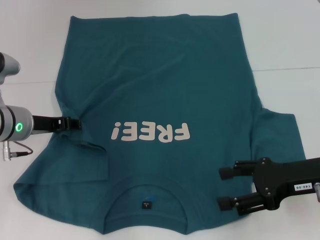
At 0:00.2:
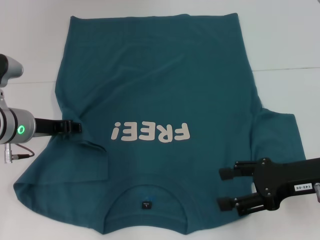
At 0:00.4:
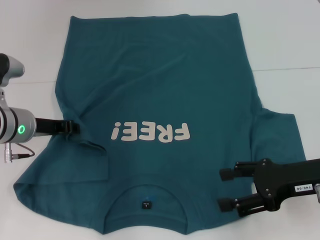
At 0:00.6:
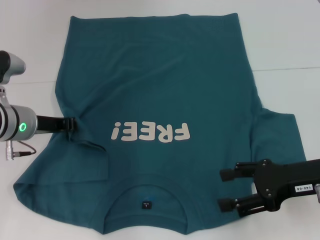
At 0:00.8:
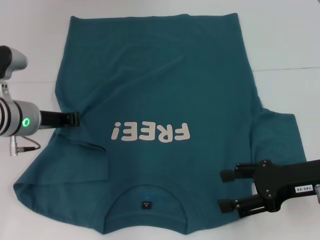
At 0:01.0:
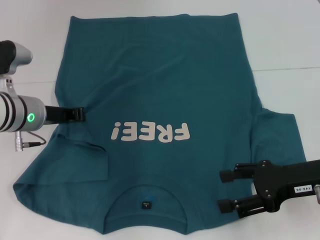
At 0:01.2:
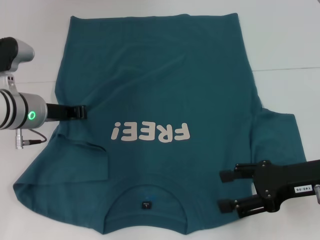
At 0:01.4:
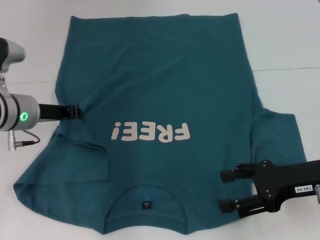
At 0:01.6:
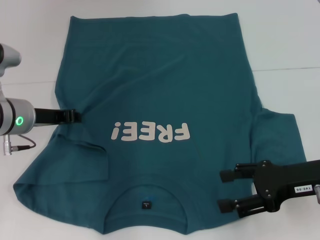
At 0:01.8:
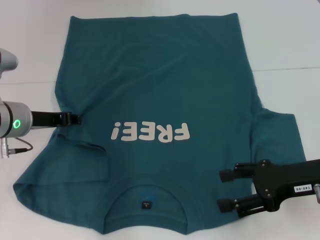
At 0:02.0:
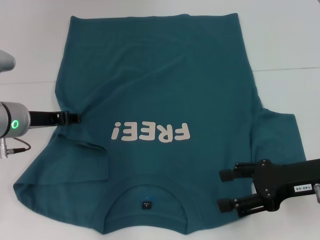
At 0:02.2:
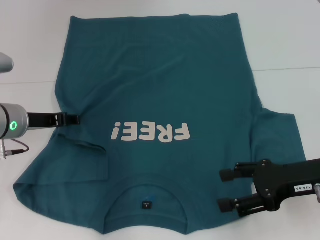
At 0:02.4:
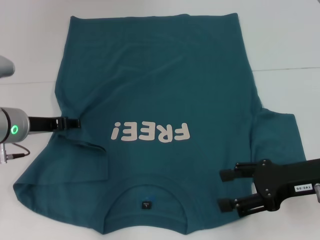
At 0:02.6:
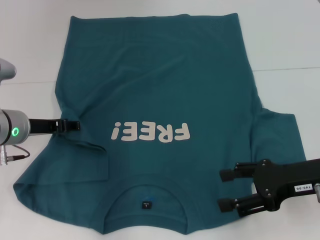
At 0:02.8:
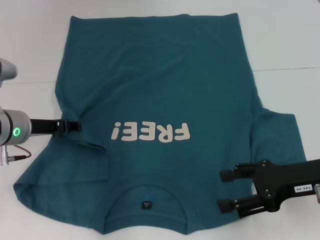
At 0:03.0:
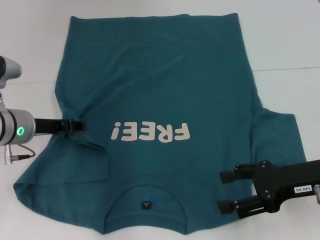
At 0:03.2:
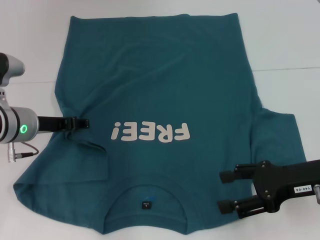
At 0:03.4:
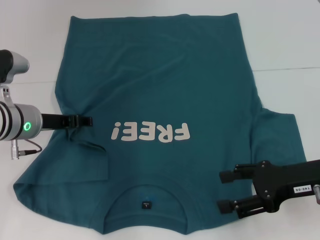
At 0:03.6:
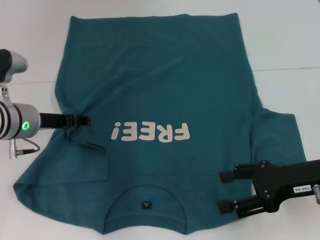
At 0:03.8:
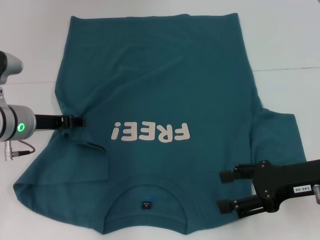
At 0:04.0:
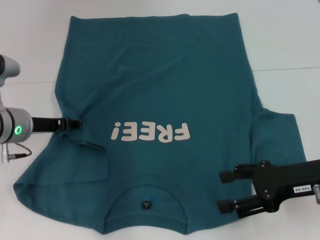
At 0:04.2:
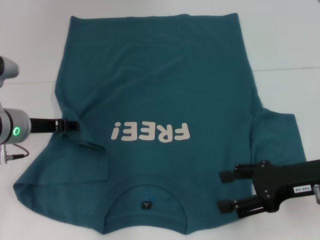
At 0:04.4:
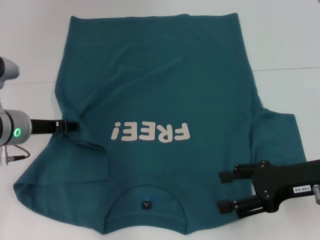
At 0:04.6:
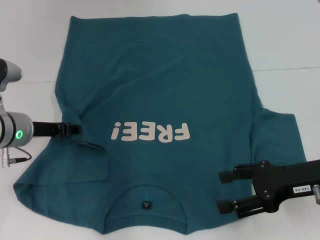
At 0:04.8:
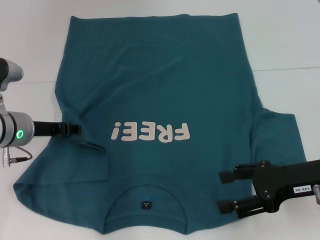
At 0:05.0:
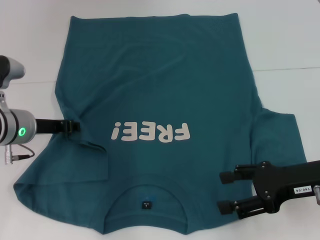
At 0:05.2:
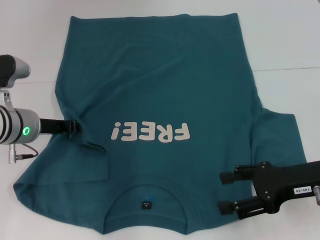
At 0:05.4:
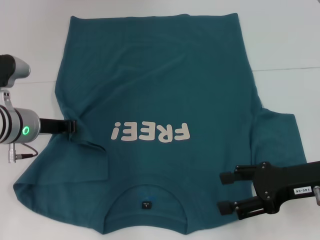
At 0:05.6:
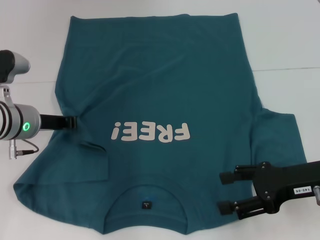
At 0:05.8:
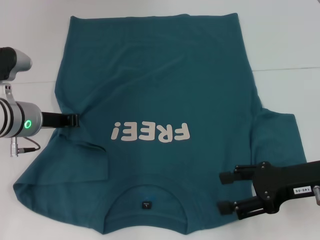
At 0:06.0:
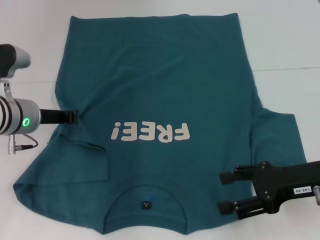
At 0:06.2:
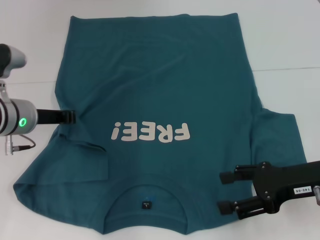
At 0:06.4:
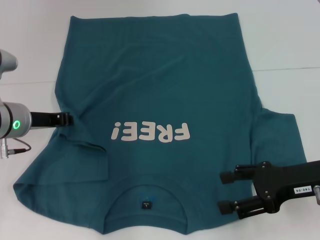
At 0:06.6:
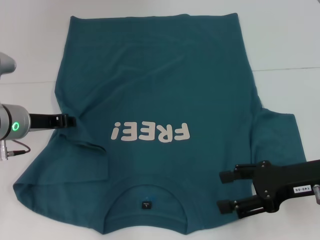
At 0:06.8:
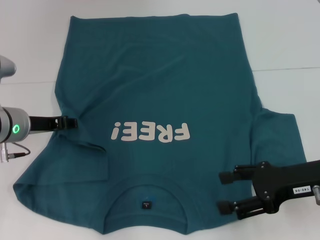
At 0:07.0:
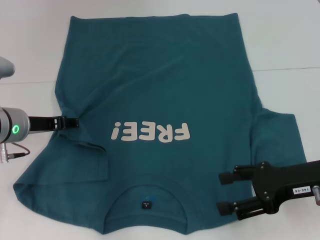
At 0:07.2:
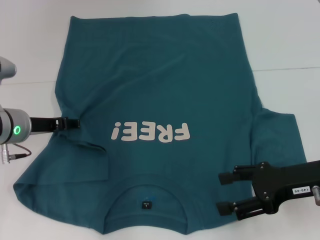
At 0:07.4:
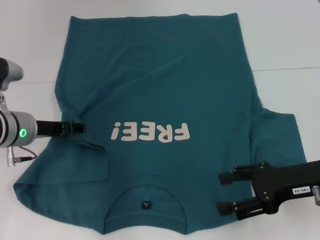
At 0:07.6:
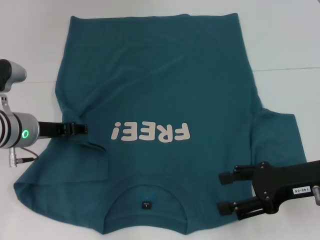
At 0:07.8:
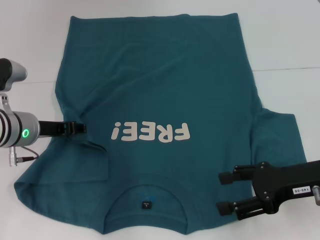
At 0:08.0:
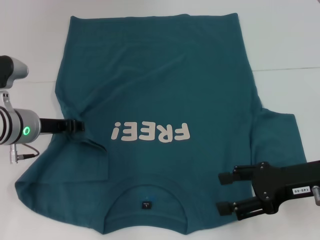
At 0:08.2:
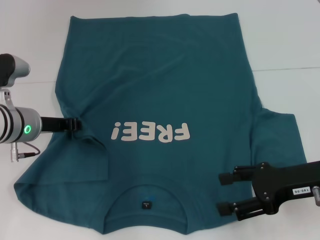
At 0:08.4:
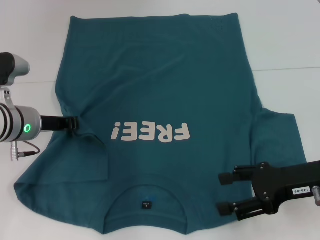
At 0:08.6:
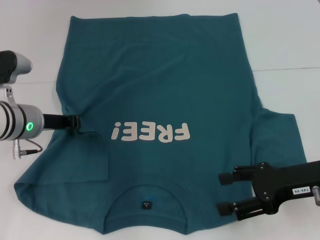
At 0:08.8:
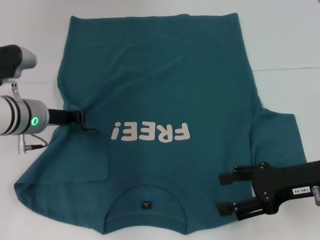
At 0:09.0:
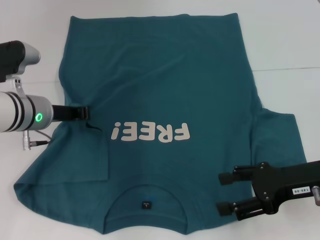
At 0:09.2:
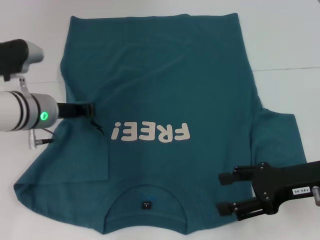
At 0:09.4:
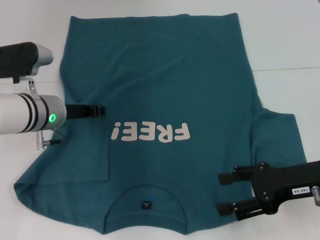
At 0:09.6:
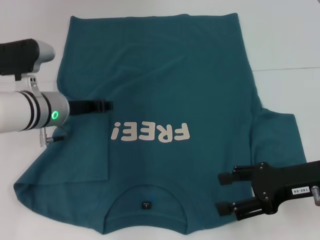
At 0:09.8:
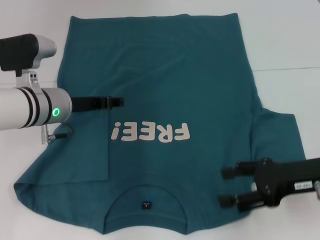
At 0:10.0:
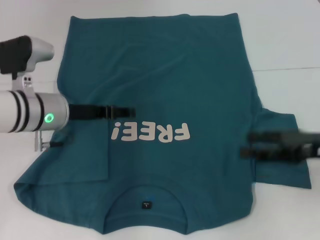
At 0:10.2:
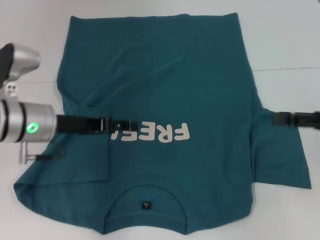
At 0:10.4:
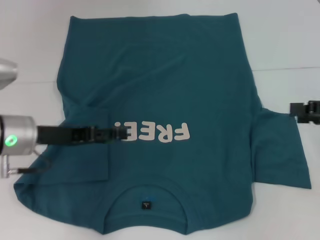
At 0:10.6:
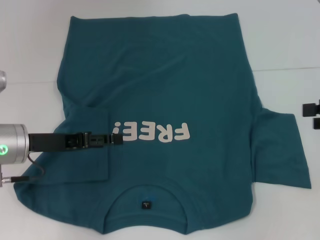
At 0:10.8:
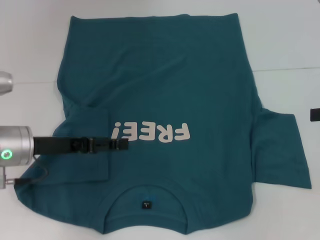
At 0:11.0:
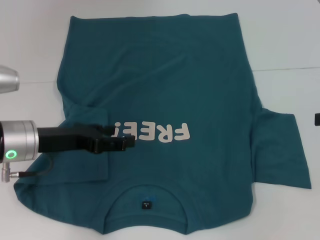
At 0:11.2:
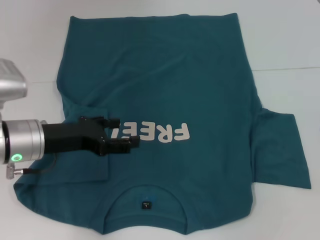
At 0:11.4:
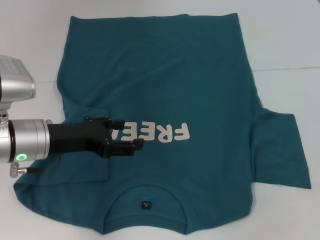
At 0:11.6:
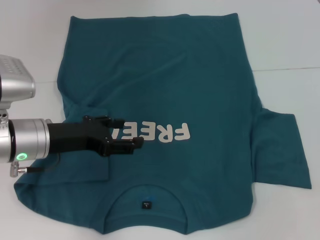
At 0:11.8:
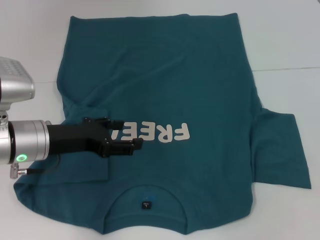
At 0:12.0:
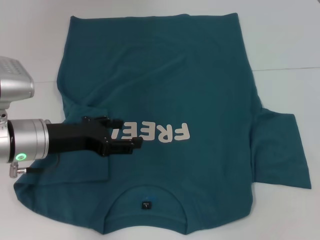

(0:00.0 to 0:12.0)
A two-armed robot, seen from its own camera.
Step, 0:00.0 - 0:10.0: Fold the bottom left sleeve with your left hand.
0:00.0 - 0:01.6: The left gripper closes.
0:01.6 - 0:03.0: The left gripper opens up.
0:03.0 - 0:04.4: The two grippers keep their place.
0:04.4 - 0:06.0: The left gripper closes its fingers.
0:06.0 - 0:07.6: The left gripper opens its fingers.
0:07.6 - 0:09.0: The left gripper closes up.
0:09.0 - 0:10.4: The left gripper changes place by roughly 5 cm, and opens, while the right gripper is displaced to the right and upward by approximately 10 cm.
0:10.4 - 0:12.0: The right gripper is displaced to the right by about 5 cm.

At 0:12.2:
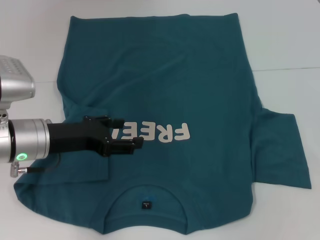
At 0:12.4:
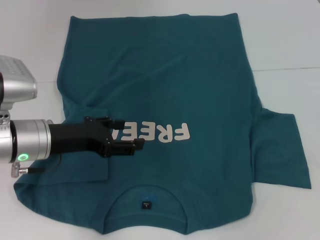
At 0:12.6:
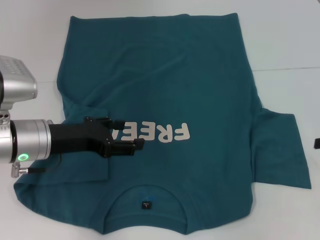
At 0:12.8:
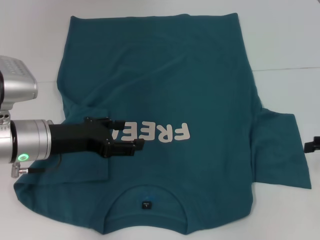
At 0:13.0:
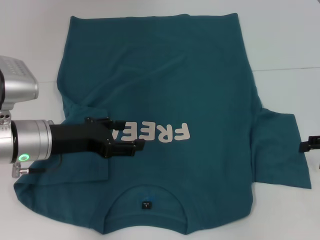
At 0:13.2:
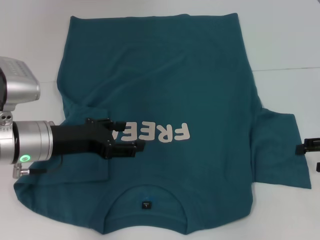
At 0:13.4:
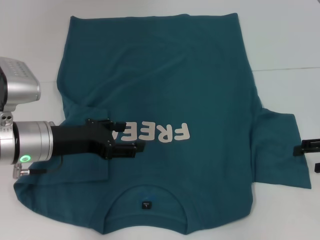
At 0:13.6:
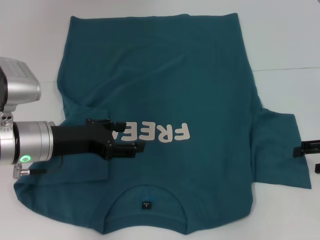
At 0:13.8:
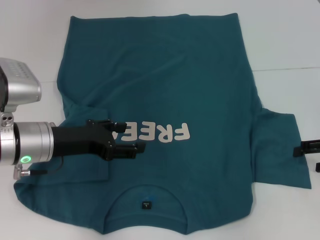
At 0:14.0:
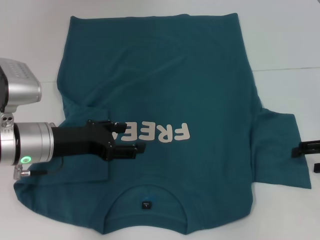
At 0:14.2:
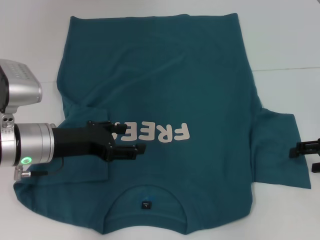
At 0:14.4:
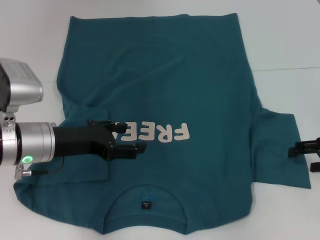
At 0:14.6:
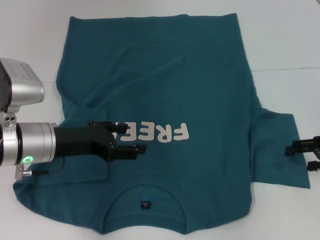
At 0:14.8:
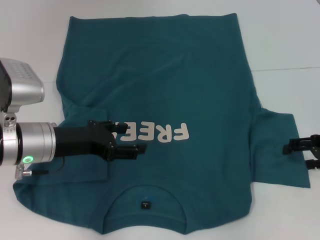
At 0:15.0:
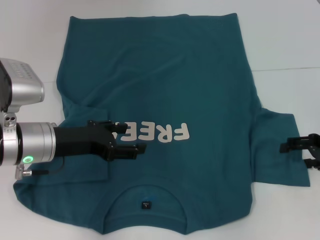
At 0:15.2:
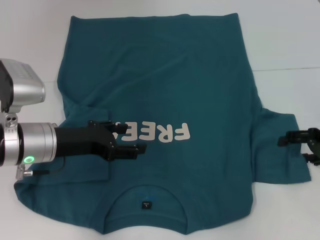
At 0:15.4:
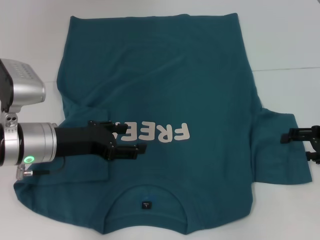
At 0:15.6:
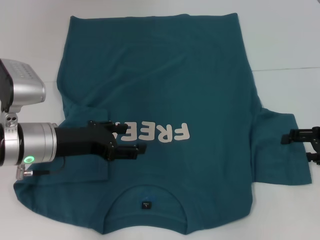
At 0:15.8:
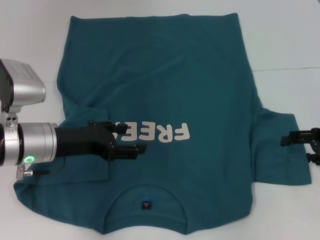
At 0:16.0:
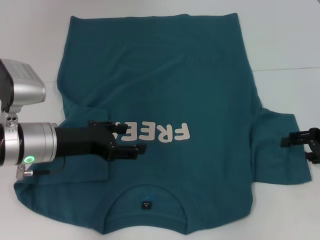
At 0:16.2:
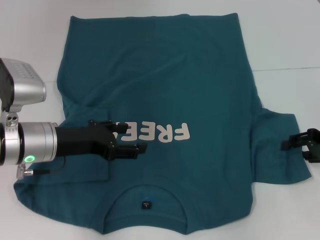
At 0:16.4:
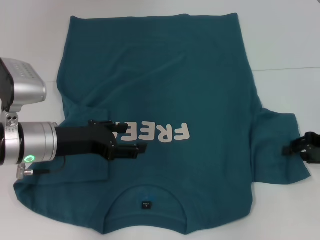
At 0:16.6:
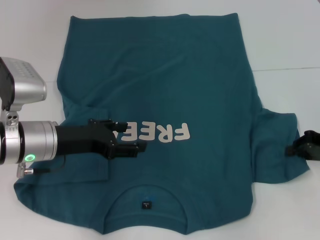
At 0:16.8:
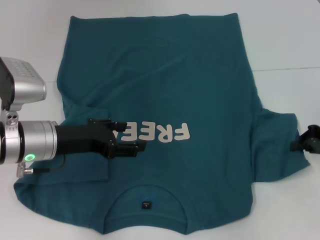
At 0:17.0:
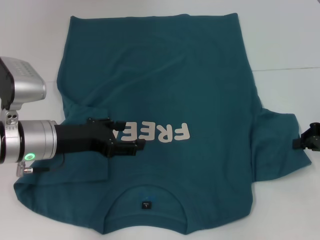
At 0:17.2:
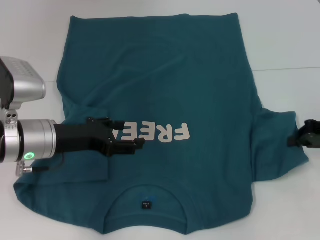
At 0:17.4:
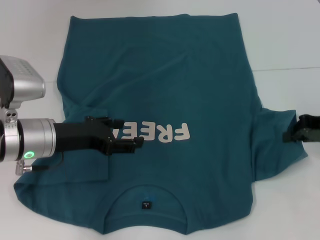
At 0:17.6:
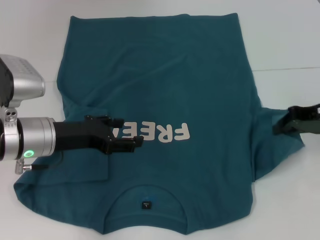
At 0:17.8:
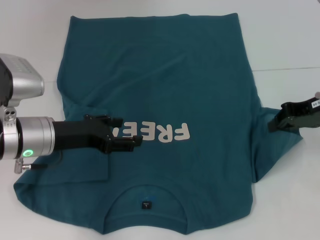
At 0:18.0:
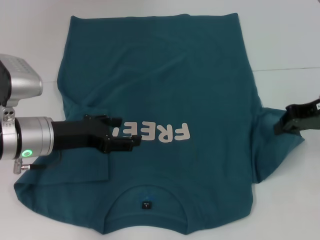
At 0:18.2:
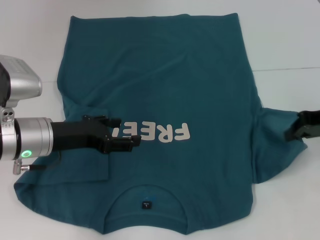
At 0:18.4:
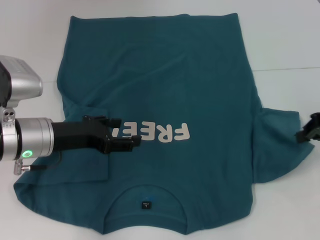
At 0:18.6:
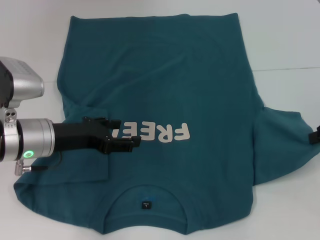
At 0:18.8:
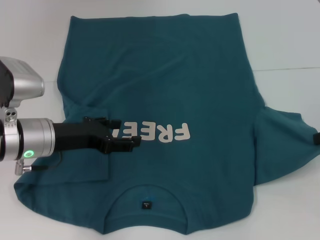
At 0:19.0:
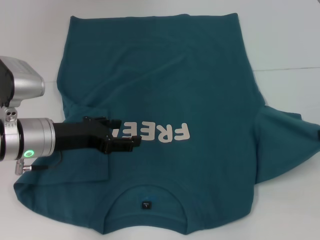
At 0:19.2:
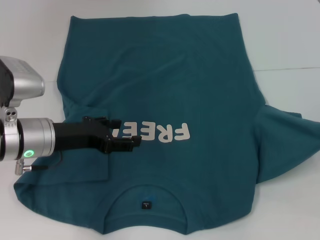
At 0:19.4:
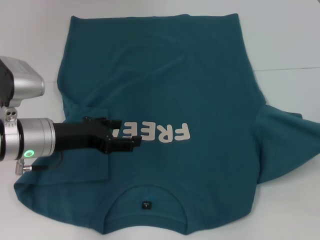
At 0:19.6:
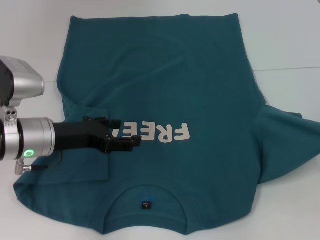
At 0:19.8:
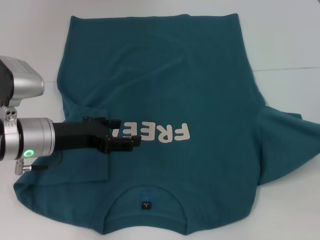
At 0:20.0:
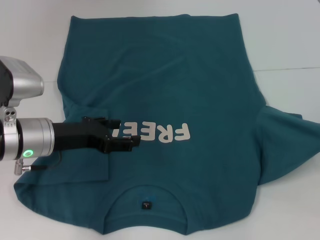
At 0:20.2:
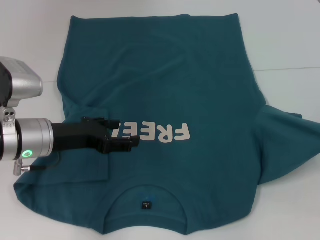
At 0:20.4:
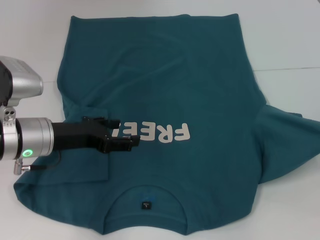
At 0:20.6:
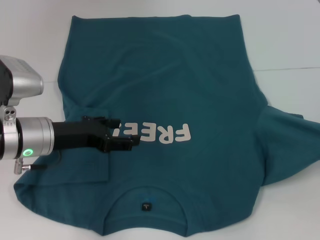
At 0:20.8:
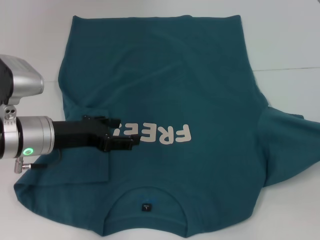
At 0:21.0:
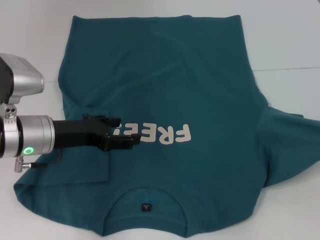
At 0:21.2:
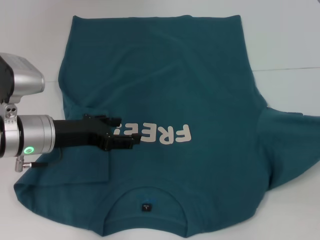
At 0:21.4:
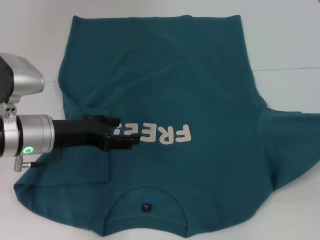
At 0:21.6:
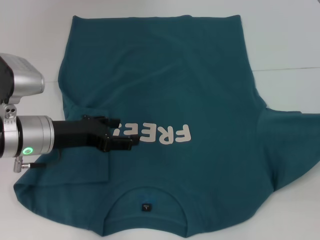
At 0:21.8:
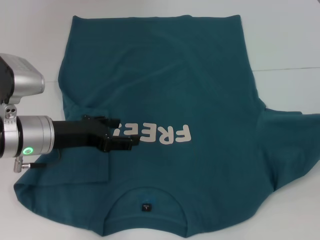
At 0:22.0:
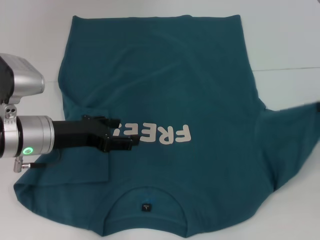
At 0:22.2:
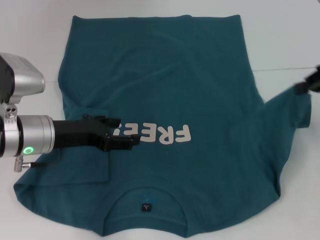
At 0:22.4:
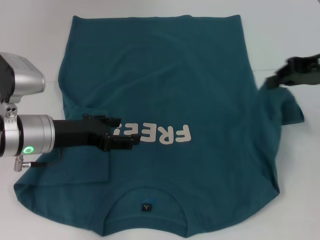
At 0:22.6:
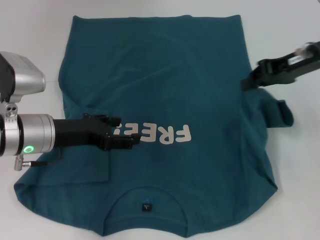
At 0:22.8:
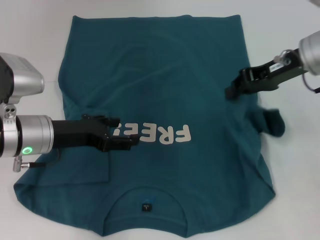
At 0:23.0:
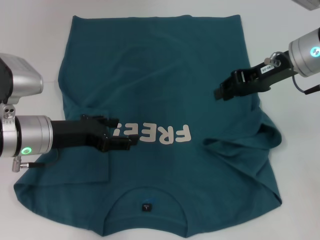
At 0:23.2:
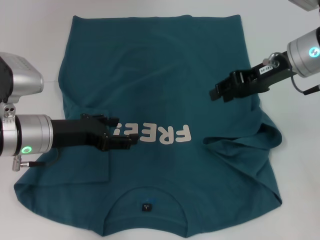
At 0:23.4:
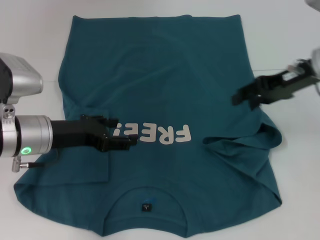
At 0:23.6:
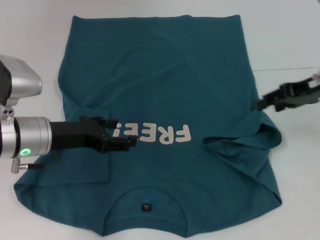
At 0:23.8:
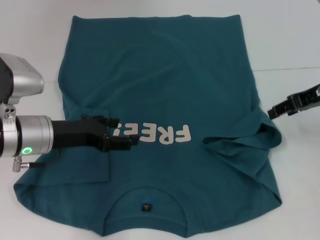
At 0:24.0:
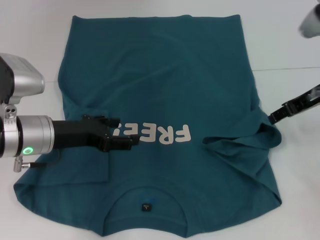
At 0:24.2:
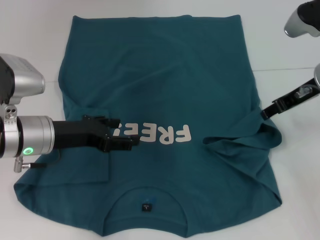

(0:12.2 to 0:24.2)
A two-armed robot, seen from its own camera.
0:12.2 - 0:13.8: The right gripper shifts by some 10 cm.
0:13.8 - 0:15.2: There are only small adjustments of the grippers.
0:15.2 - 0:16.6: The right gripper closes up.
0:16.6 - 0:18.2: The right gripper travels upward by some 5 cm.
0:18.2 - 0:19.8: The right gripper goes about 5 cm to the right.
0:19.8 - 0:21.2: The grippers make only small movements.
0:21.2 - 0:22.6: The right gripper heads to the left and forward, covering some 15 cm.
0:22.6 - 0:24.2: The right gripper opens its fingers.
